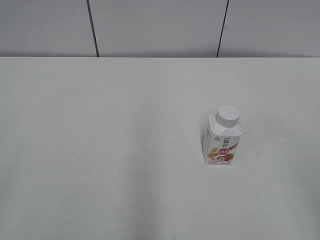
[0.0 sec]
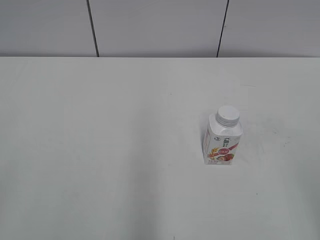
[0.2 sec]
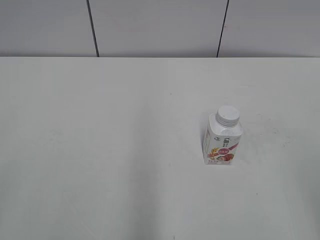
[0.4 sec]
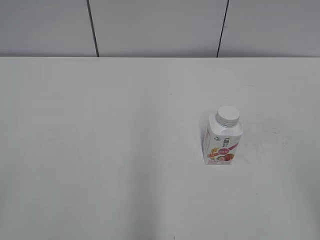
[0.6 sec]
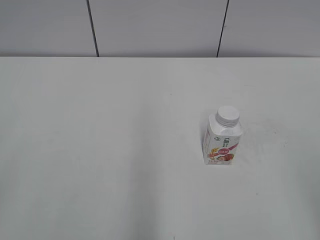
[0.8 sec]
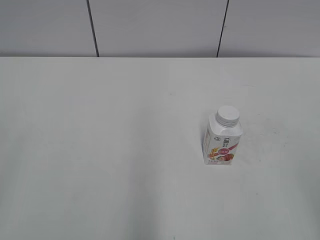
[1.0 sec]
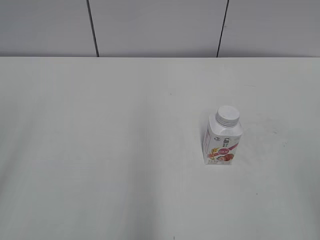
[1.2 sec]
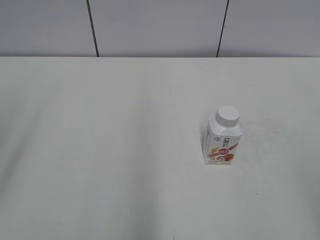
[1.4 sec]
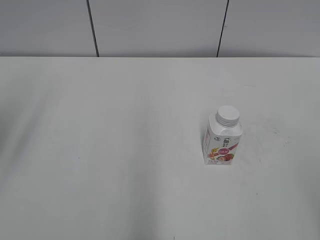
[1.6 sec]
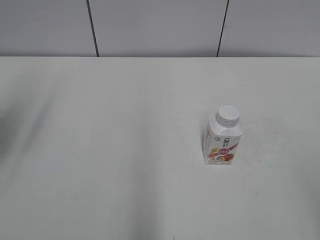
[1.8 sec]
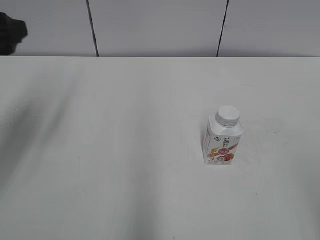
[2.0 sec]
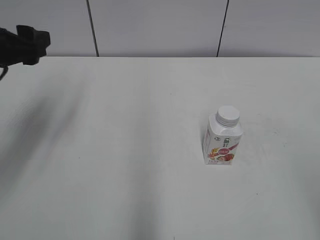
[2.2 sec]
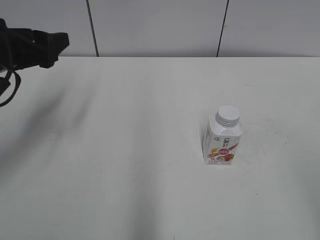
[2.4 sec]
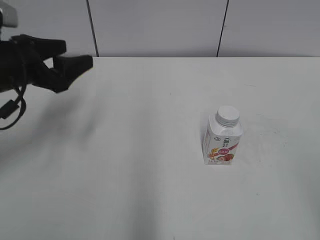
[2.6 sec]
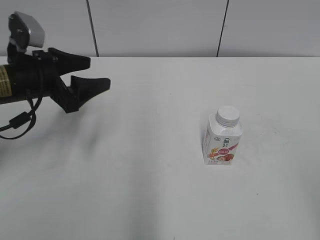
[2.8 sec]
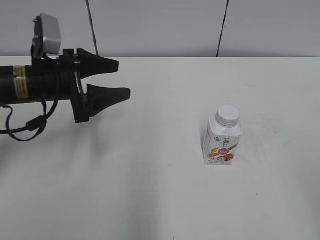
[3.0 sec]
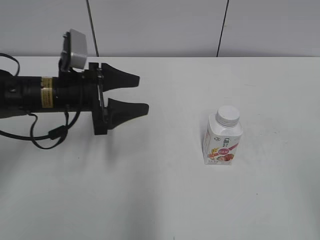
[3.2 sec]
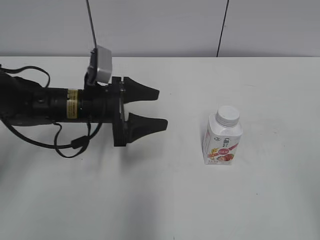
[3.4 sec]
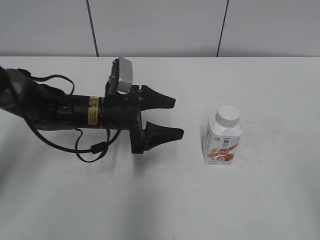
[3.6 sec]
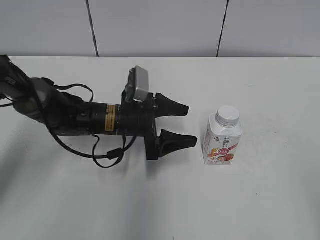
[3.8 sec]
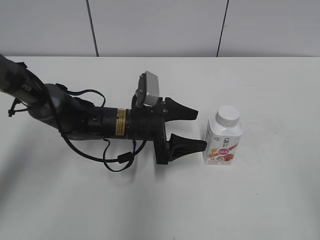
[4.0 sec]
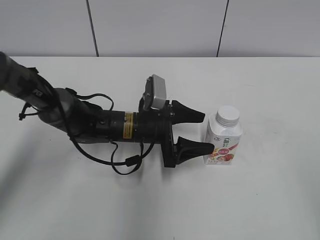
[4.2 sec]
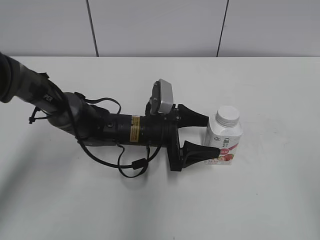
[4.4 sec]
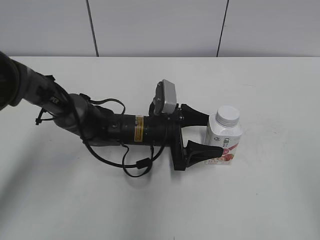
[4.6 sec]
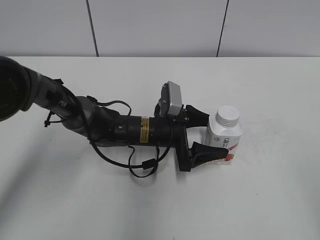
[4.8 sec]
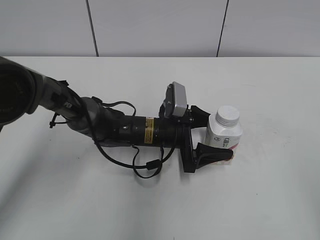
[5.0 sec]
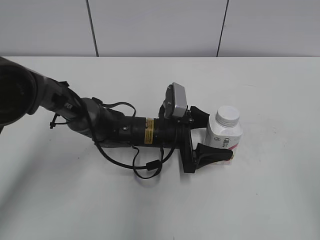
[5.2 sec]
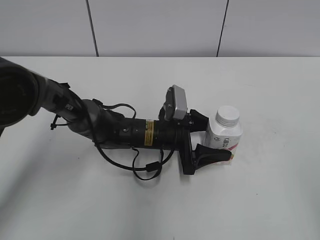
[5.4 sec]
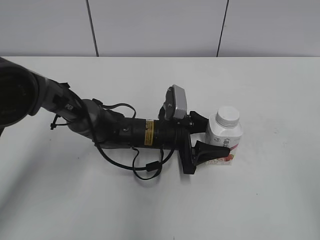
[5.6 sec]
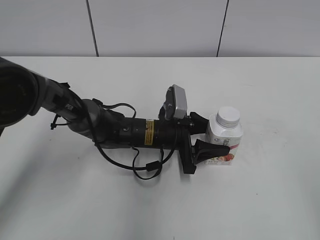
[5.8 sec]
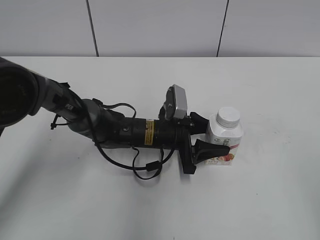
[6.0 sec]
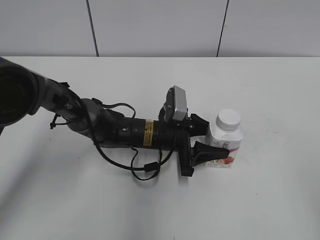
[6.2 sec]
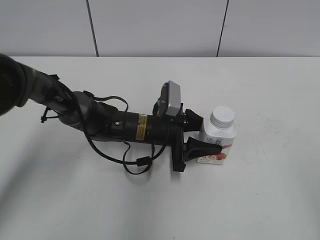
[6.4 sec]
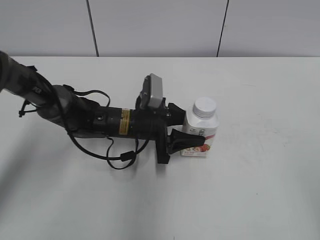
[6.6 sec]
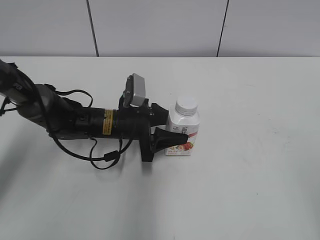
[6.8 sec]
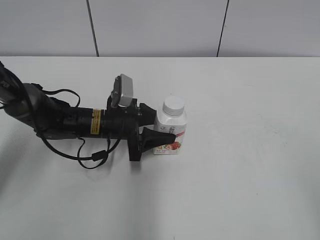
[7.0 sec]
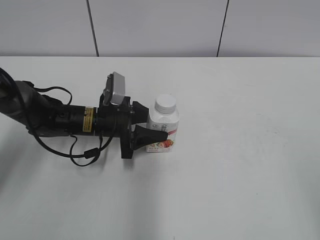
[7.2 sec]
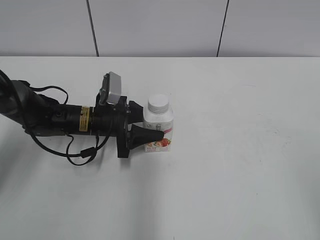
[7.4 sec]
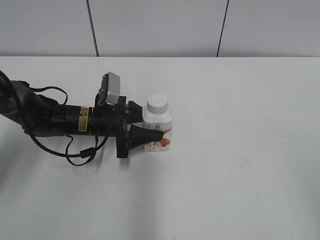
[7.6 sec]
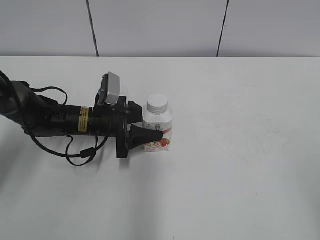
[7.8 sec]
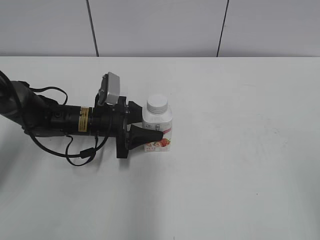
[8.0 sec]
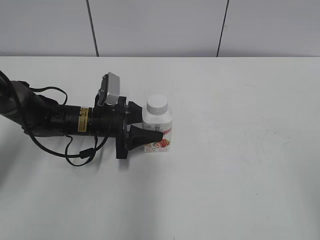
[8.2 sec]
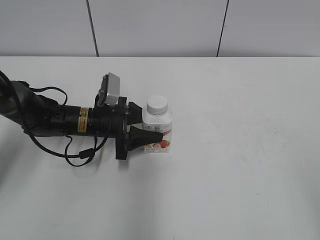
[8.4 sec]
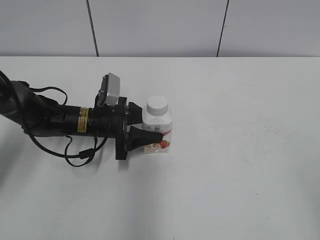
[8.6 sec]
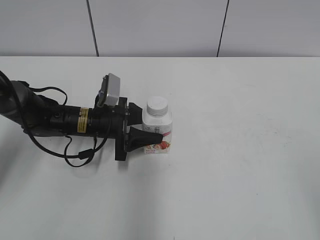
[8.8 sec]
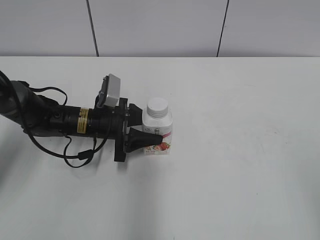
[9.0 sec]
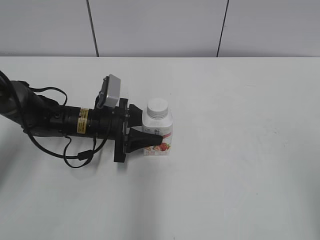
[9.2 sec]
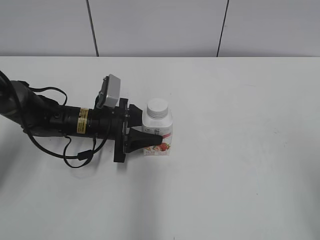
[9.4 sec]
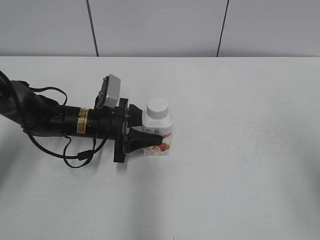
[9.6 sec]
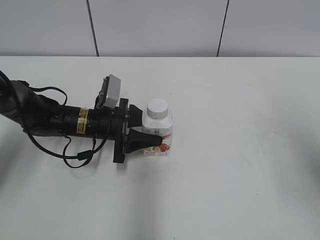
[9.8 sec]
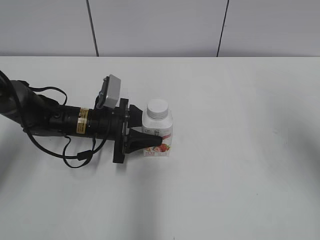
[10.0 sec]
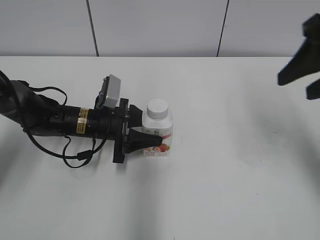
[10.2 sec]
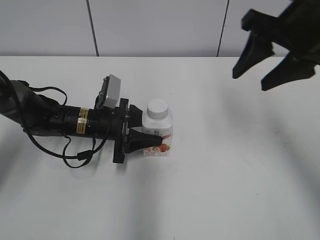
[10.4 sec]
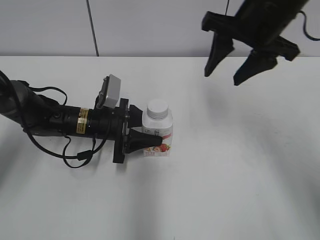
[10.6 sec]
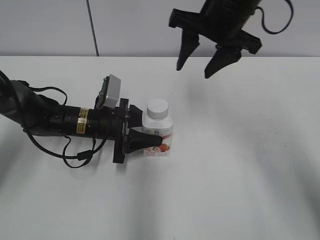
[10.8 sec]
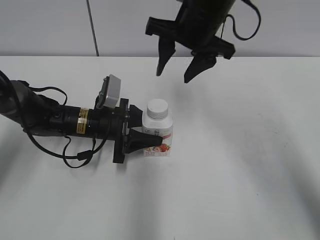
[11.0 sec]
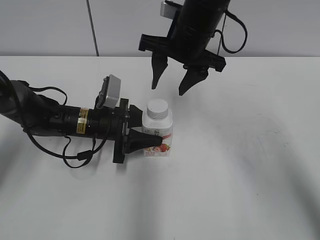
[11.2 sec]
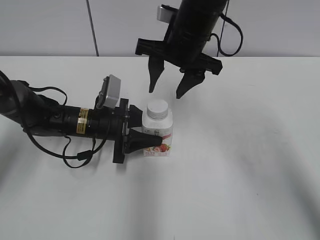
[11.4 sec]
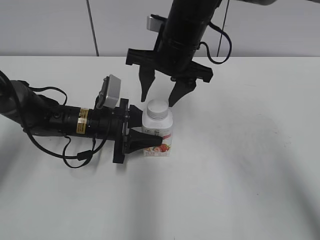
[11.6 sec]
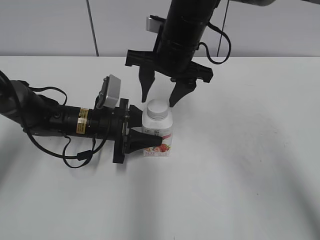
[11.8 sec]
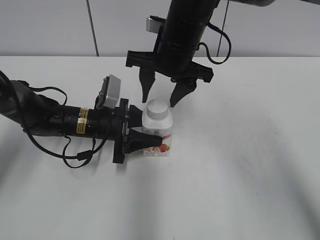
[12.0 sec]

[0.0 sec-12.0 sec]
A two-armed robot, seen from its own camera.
Step, 0.0 sec to 5.8 sec: Grab the Yili Changqing with the left hand.
Step, 6.2 sec to 9.6 sec: Move the Yili Changqing from right to left.
1.6 sec to 3.0 sec: The left gripper shifts about 25 cm downward, forward and to the right.
3.0 sec to 4.4 sec: The left gripper shifts about 20 cm to the right and downward.
4.4 sec to 6.0 sec: The left gripper closes.
6.0 sec to 7.6 sec: The left gripper is displaced to the left by roughly 15 cm.
7.6 sec to 9.0 sec: Both grippers stay about where they are.
9.0 sec to 10.4 sec: The right gripper moves forward, roughly 30 cm.
10.4 sec to 12.0 sec: The right gripper moves to the left and downward, roughly 20 cm.

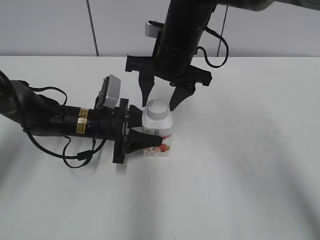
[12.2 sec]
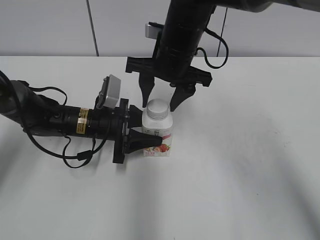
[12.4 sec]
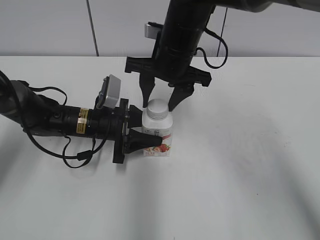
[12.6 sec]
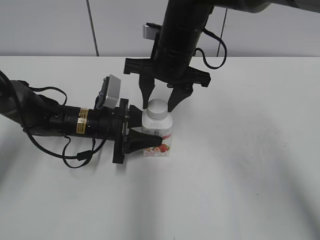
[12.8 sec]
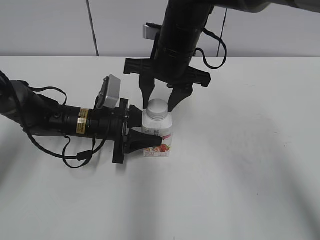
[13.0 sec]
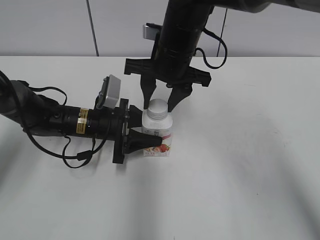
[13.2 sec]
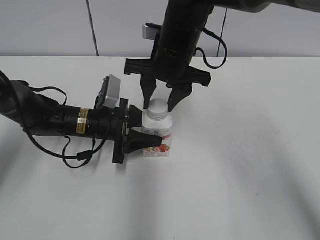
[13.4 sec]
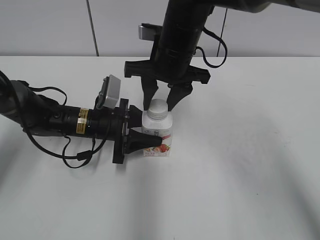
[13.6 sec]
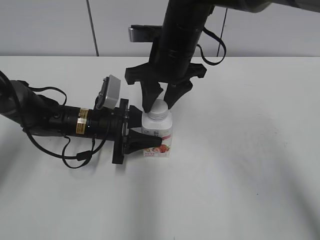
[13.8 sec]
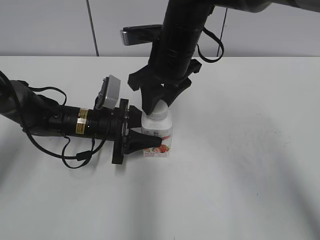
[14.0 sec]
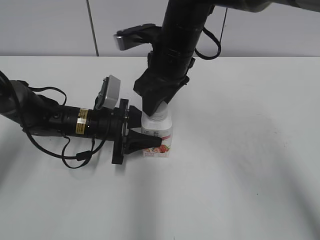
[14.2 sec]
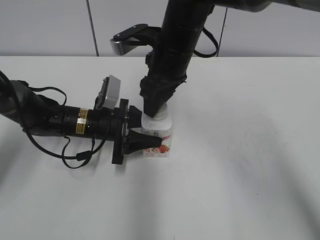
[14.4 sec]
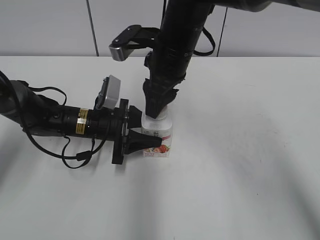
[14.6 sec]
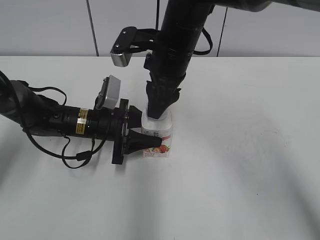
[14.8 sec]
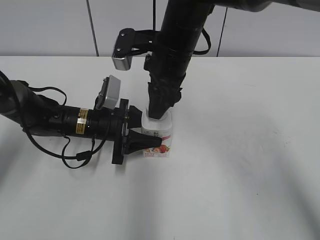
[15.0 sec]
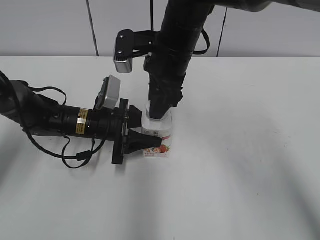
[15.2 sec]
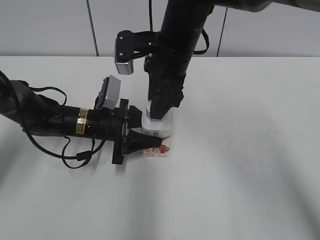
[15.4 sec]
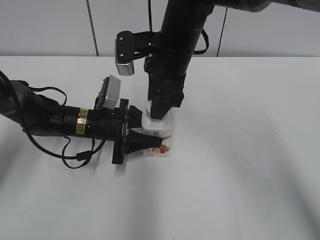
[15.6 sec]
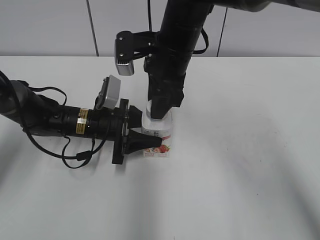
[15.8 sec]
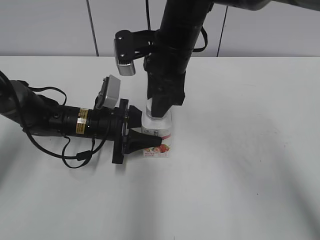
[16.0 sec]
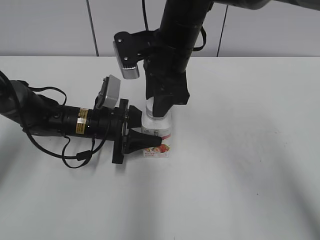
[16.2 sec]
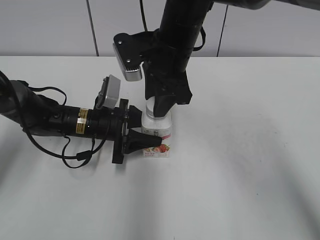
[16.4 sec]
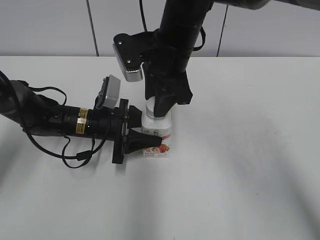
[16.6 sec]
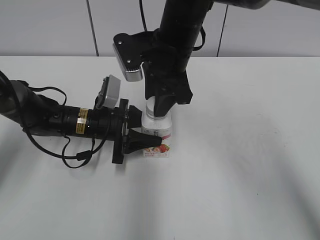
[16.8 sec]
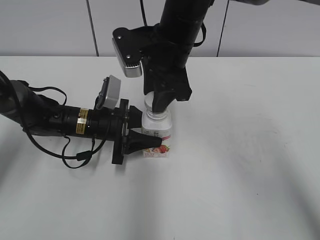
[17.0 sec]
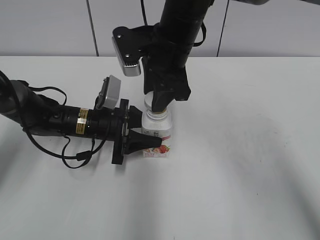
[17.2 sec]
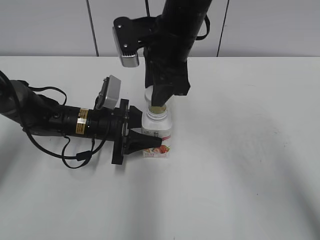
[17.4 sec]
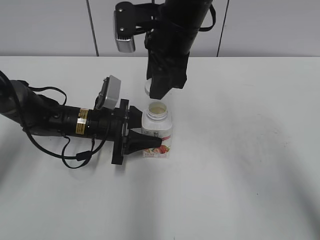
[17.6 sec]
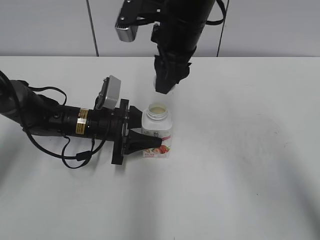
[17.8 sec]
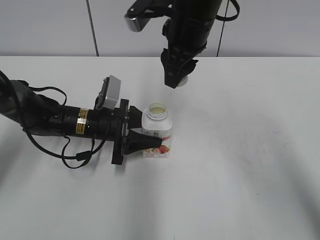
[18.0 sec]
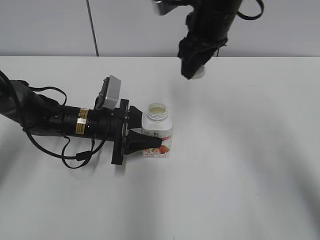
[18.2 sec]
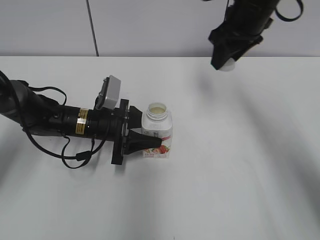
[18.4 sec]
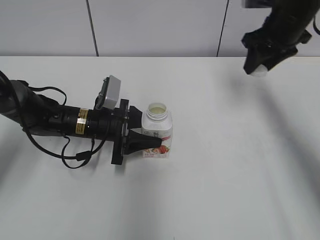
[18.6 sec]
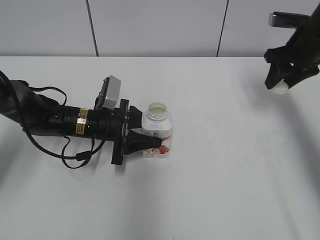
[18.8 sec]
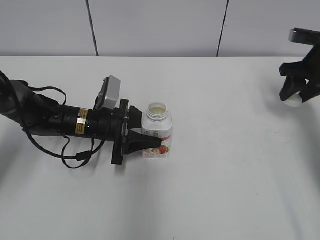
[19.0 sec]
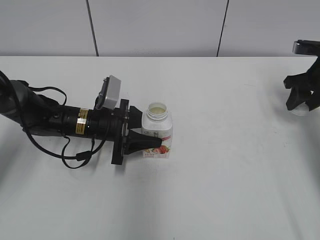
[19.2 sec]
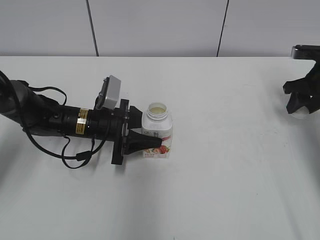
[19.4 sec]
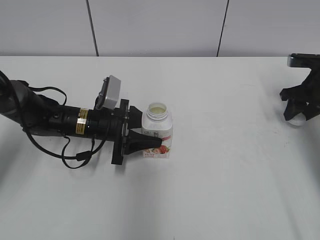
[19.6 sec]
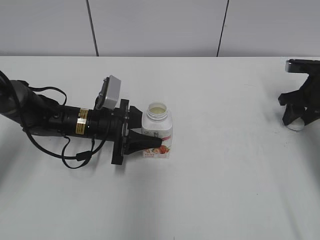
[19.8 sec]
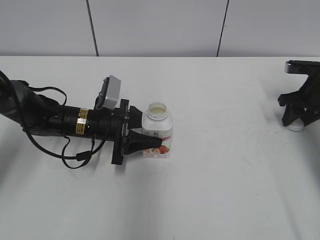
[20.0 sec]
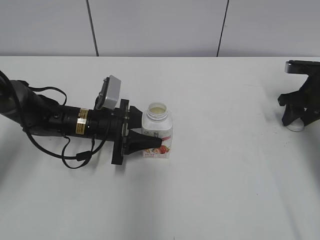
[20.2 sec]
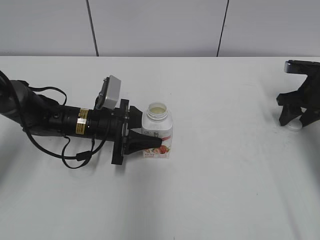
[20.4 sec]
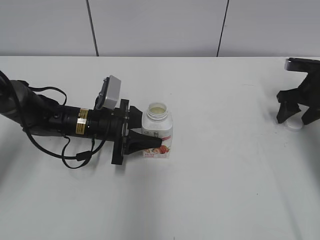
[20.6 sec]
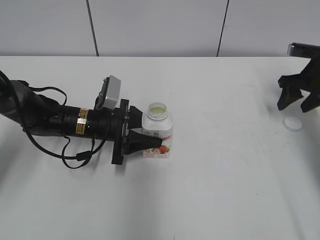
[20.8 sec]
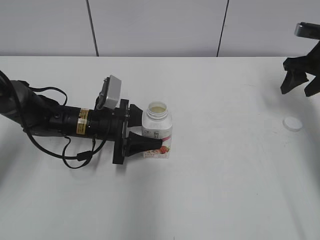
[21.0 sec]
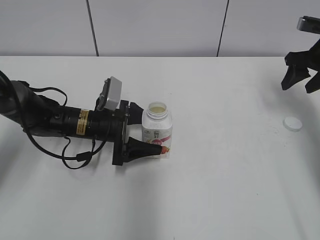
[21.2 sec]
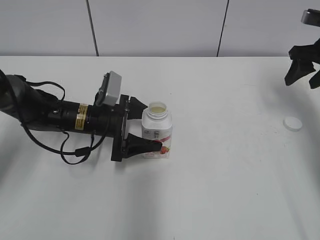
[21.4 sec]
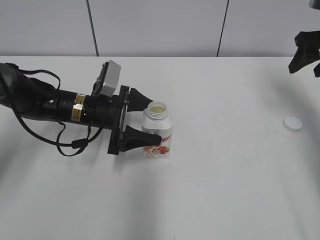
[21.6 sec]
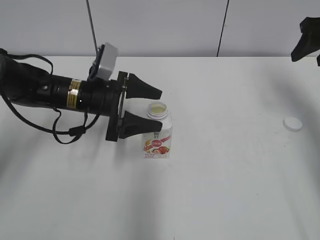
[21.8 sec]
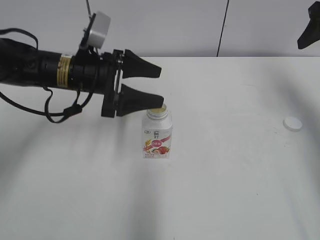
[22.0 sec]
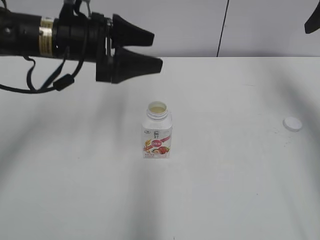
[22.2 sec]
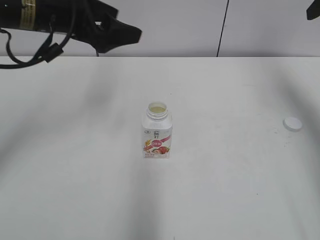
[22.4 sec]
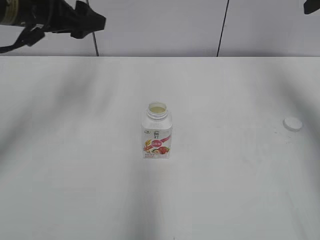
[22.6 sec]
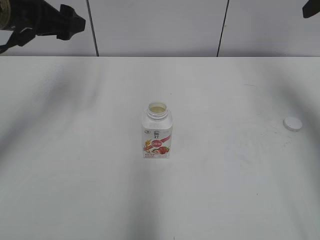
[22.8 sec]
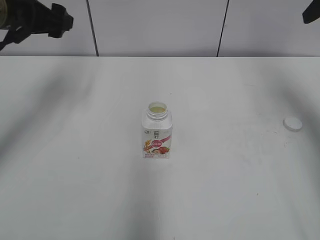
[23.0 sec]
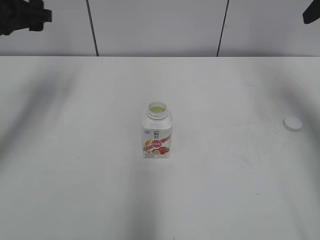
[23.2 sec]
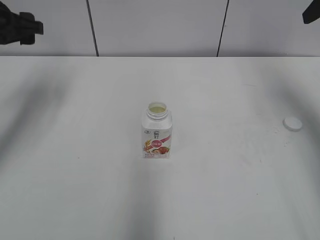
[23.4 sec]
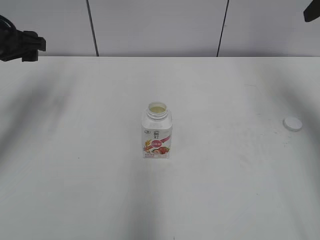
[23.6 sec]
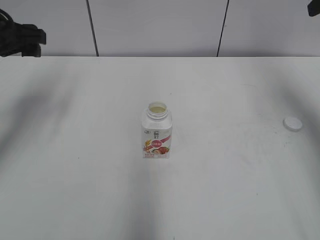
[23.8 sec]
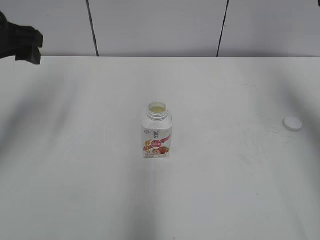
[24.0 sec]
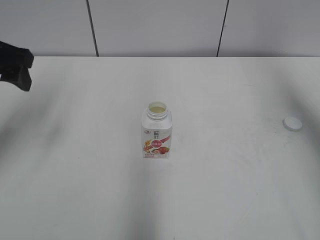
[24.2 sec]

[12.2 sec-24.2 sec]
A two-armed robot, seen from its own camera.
Step, 17.8 sec to 20.6 sec: Place the bottle cap on the right.
12.2 sec to 13.8 sec: The right gripper closes its fingers.
15.2 sec to 16.6 sec: The grippers move only a little.
16.6 sec to 18.2 sec: The right gripper moves approximately 5 cm.
18.2 sec to 19.8 sec: The right gripper travels to the right and downward by some 30 cm.
19.8 sec to 21.2 sec: The right gripper moves upward, about 10 cm, and opens its fingers. The left gripper opens up.
21.2 sec to 22.6 sec: Both grippers move upward, approximately 20 cm.
22.6 sec to 24.2 sec: The left gripper heads to the left and backward, covering some 10 cm.
